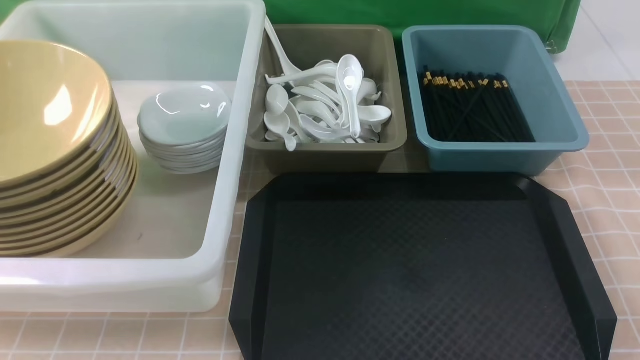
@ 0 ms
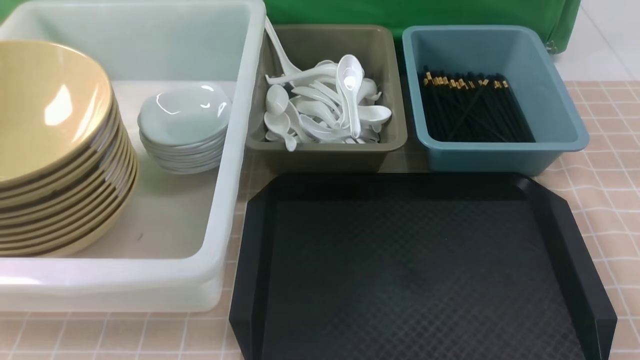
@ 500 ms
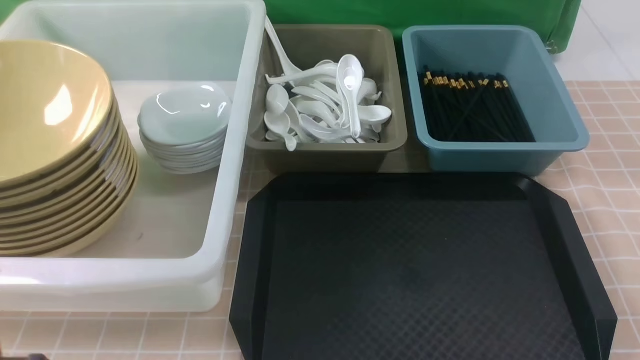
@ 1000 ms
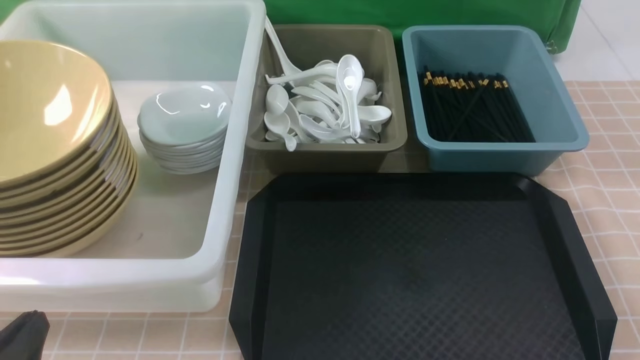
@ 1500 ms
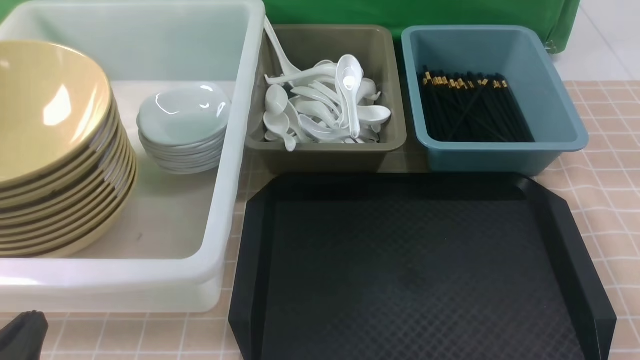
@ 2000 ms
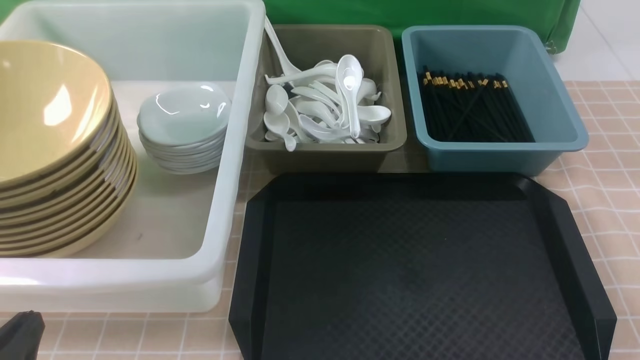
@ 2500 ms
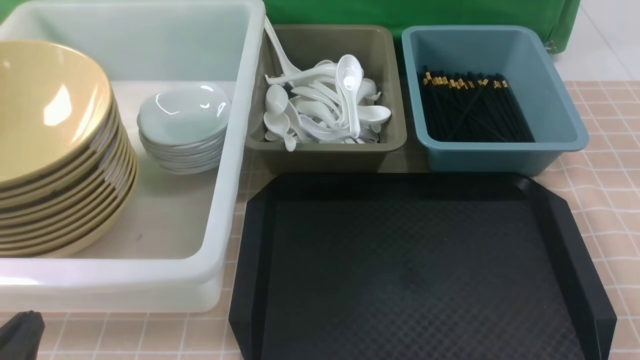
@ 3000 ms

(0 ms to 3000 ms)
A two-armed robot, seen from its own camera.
Task of the whole recording: on brown table put chopsticks spoon bowls plates into blue grey white boxes.
0 ms - 1500 ms: The left gripper travels downward by approximately 10 cm.
1500 ms - 3000 ms: Both grippers stay about where they are.
